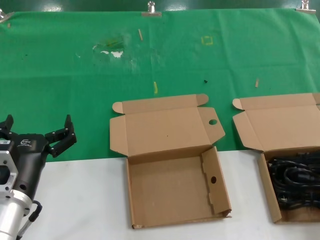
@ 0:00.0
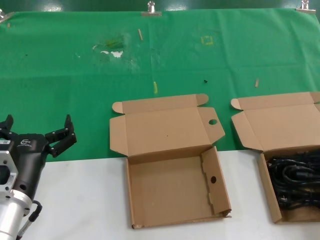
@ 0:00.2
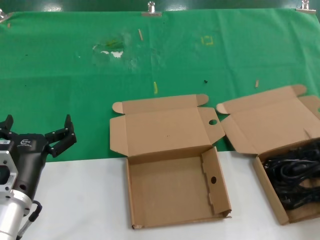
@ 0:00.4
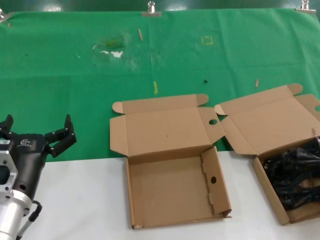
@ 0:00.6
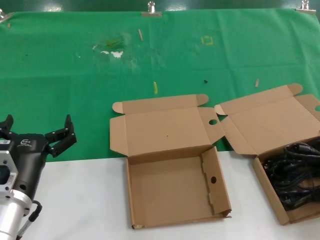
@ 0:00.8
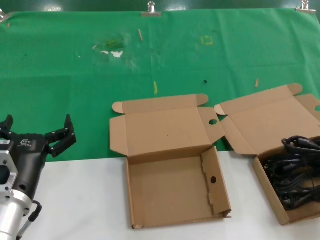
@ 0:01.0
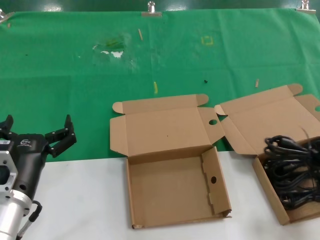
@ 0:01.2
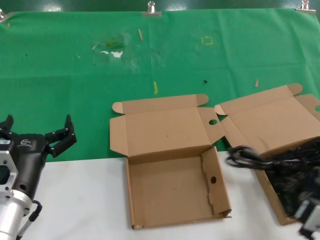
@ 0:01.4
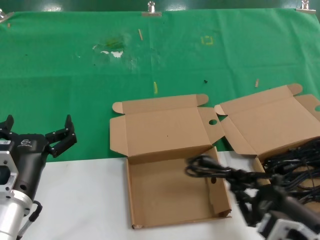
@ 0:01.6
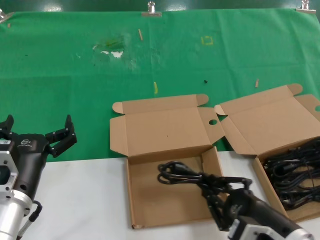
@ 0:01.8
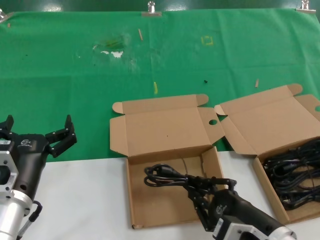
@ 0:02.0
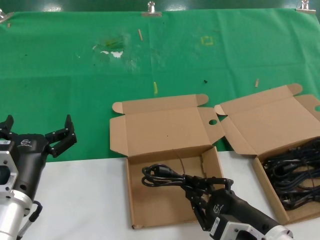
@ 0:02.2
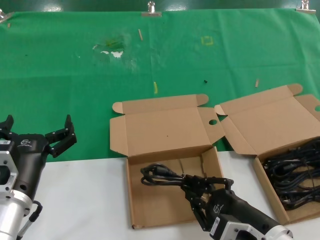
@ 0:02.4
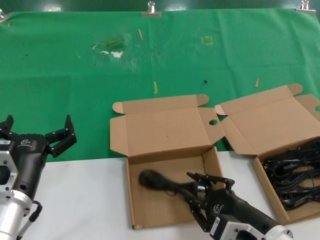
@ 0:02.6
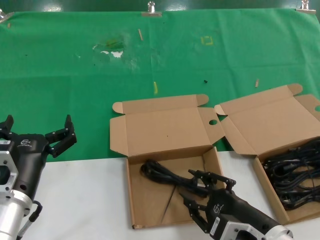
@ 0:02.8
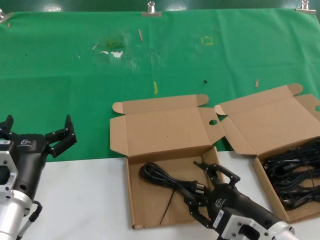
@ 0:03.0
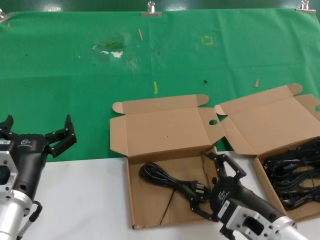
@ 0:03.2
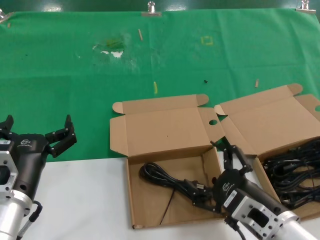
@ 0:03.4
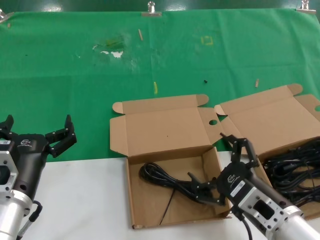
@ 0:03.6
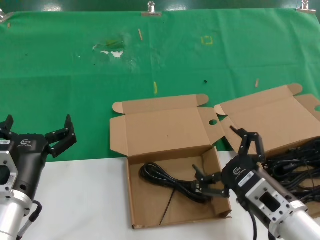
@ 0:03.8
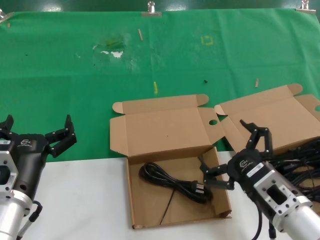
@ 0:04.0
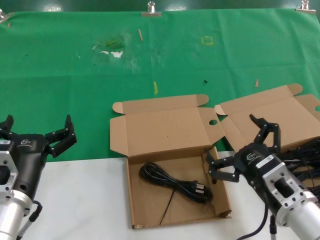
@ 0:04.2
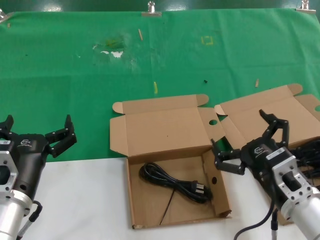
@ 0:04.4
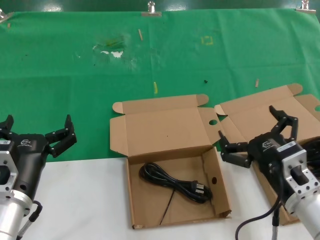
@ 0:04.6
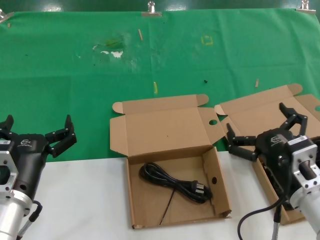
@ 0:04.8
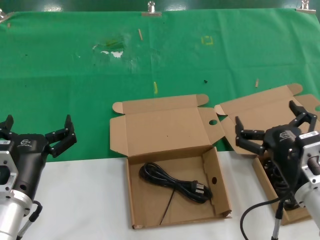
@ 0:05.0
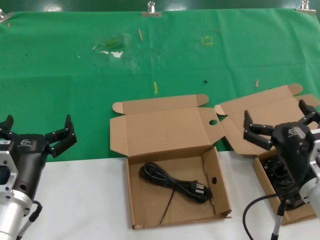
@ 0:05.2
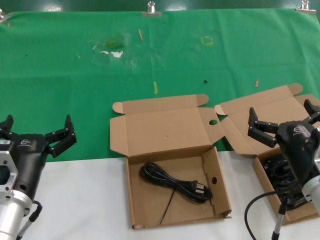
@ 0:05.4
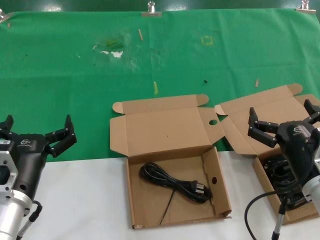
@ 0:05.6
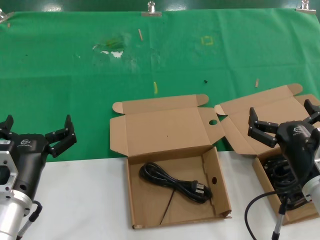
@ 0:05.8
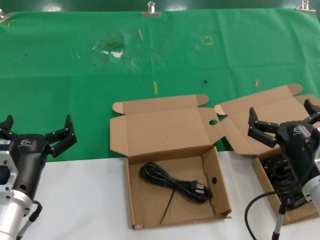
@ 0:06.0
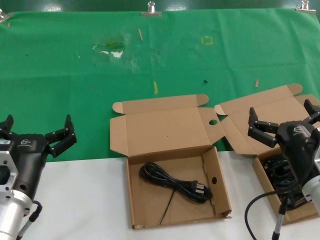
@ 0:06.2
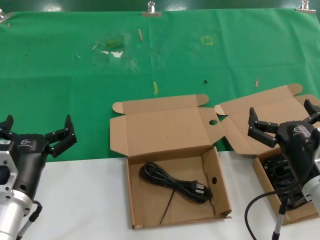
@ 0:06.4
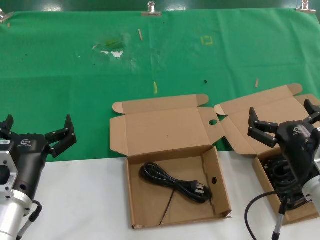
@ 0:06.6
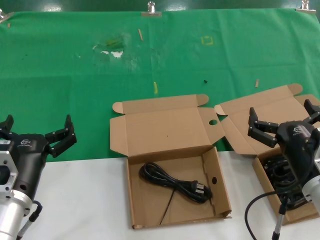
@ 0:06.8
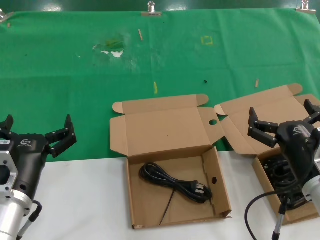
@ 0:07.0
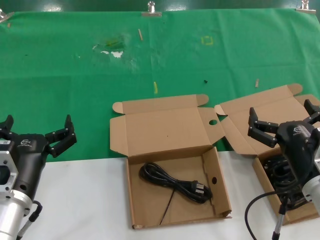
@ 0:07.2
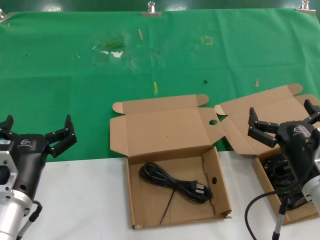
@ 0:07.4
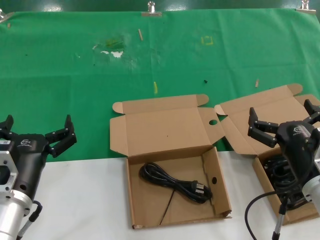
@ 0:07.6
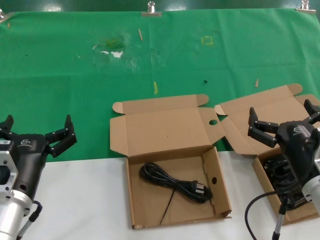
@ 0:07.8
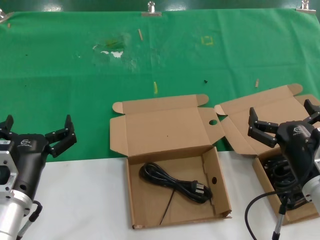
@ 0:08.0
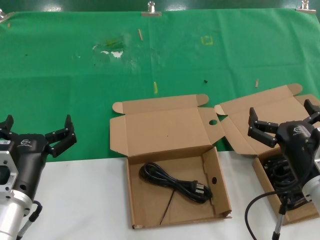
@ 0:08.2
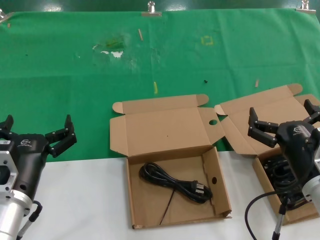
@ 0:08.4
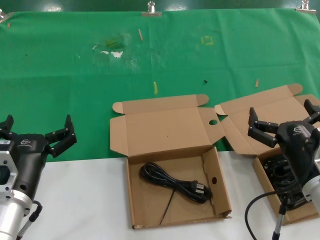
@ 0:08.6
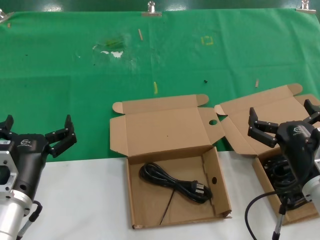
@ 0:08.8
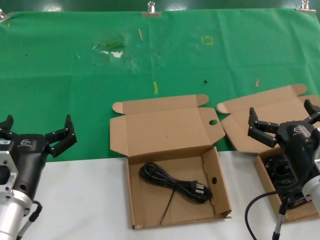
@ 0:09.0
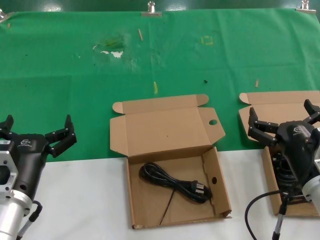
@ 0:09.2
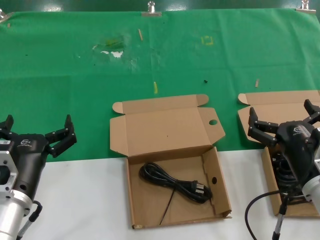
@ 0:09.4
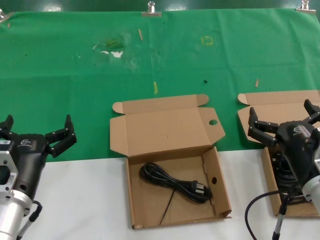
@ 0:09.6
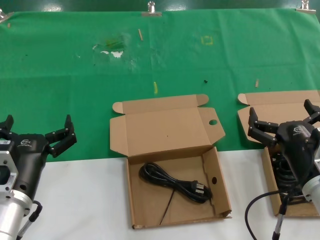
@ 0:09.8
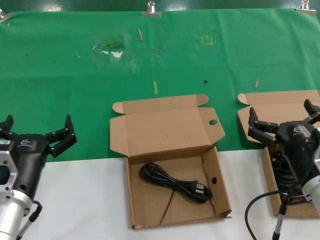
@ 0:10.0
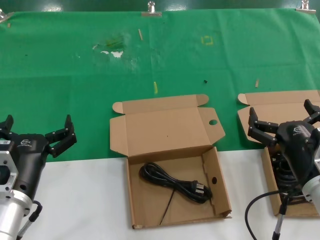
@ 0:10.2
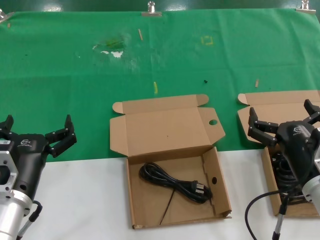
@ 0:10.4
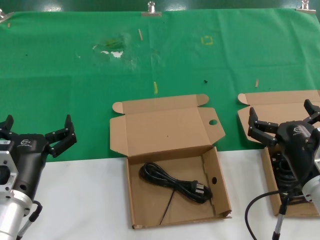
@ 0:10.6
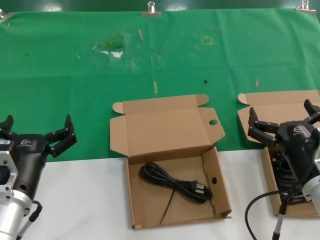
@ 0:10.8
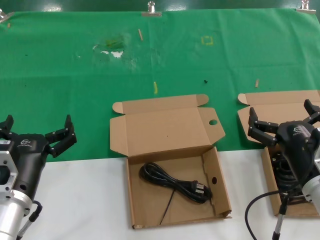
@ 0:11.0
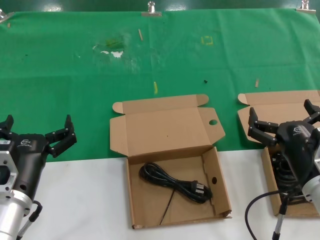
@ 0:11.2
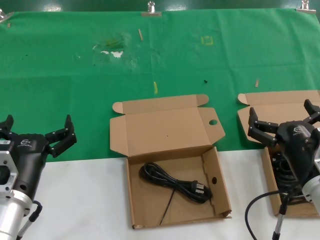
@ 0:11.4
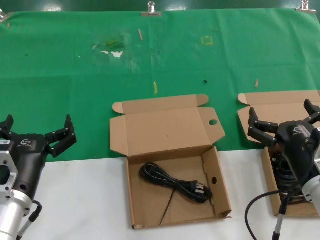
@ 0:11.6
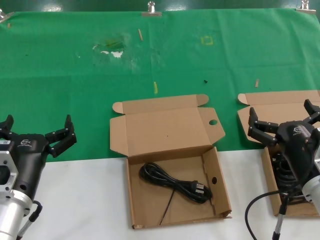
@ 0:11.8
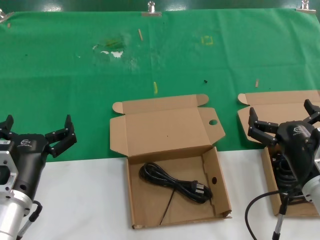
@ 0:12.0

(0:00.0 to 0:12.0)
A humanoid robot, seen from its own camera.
Task of the whole recording: take the parts from the box containing them and put them into an empty box.
Step, 0:00.6 - 0:03.2: Place the data cable in the another box.
0:00.0 - 0:01.6: The right hand shifts roughly 15 cm to the left and backward.
0:01.6 - 0:03.0: The right hand travels to the left by some 5 cm.
0:03.0 - 0:04.4: The right hand ends up approximately 5 cm from where it was.
0:06.0 - 0:12.0: The two hands keep their place.

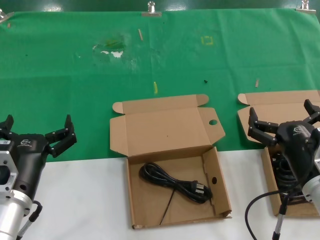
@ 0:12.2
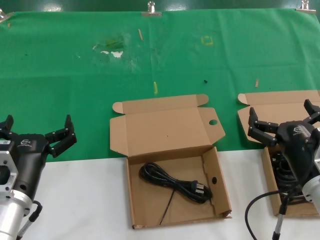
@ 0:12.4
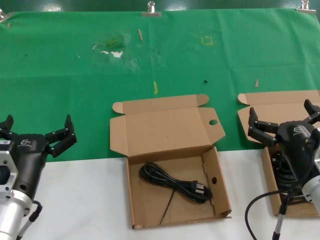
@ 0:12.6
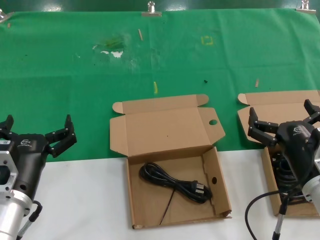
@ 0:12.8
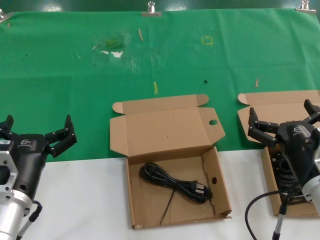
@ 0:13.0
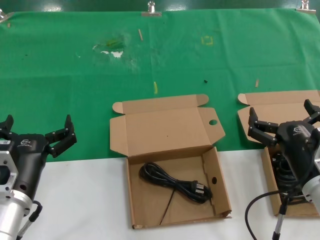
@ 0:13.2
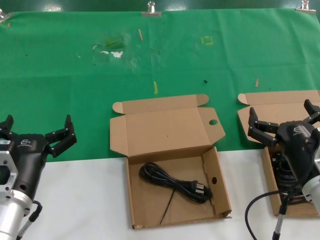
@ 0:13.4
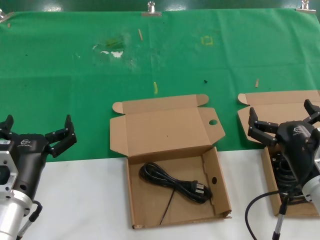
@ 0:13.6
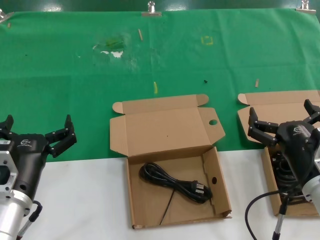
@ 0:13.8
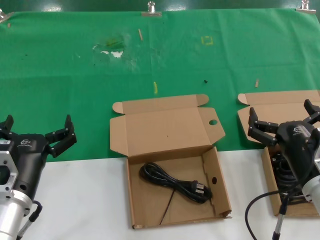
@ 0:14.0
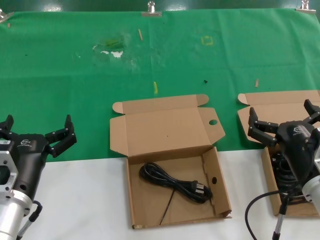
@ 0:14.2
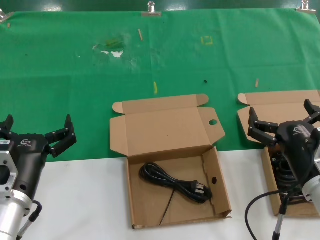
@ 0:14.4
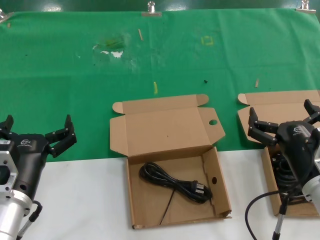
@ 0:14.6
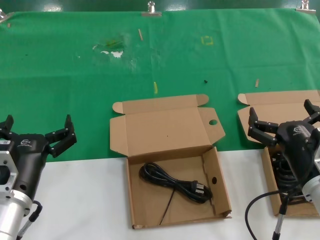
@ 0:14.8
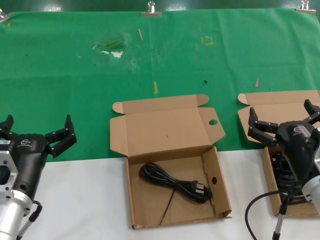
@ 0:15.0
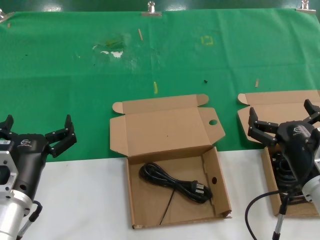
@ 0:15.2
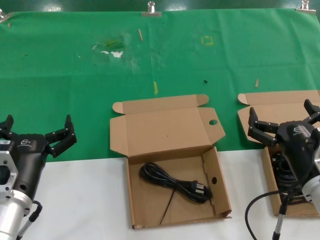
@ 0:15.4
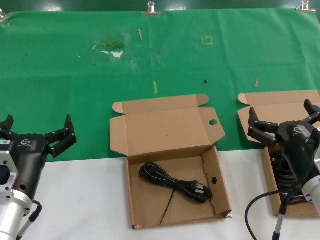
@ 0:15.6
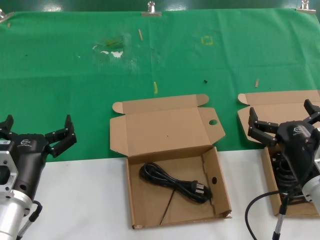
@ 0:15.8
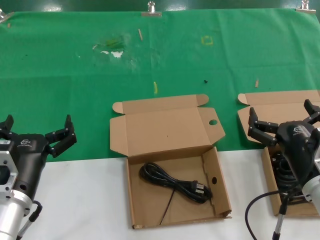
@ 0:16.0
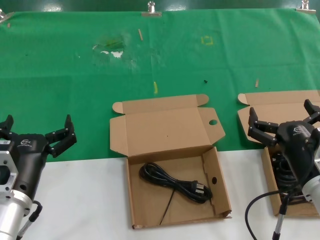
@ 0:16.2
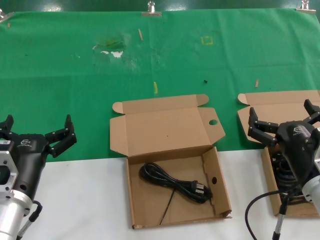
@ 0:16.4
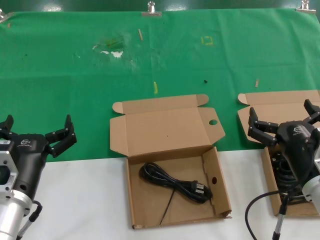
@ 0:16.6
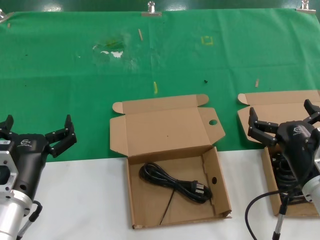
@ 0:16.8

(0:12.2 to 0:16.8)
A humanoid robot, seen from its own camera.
Task of the whole recording: take the parts from the box containing them and put them into an empty box.
0:12.2 - 0:16.8: Both hands stay put.
